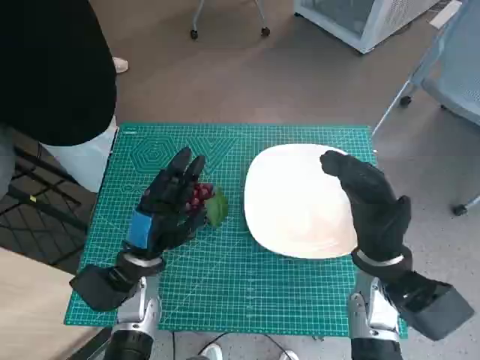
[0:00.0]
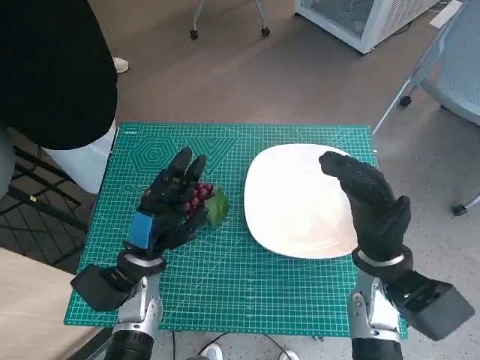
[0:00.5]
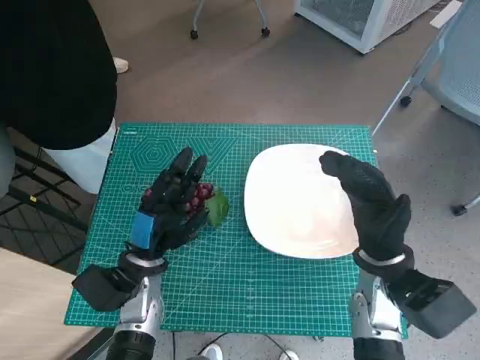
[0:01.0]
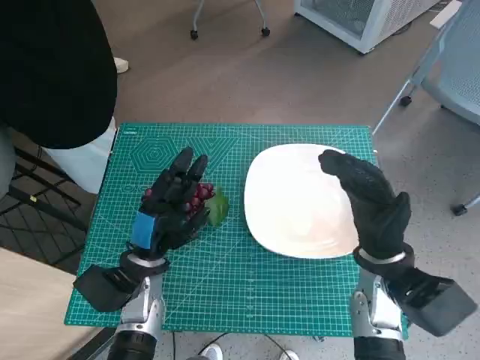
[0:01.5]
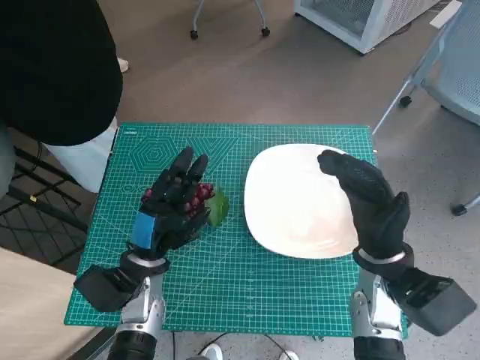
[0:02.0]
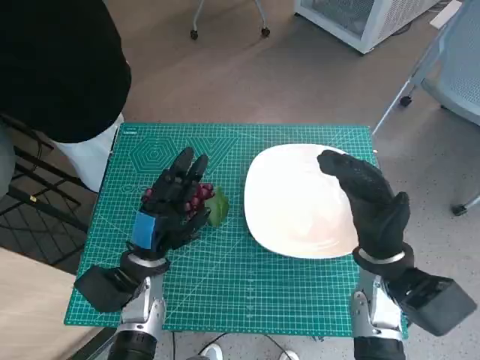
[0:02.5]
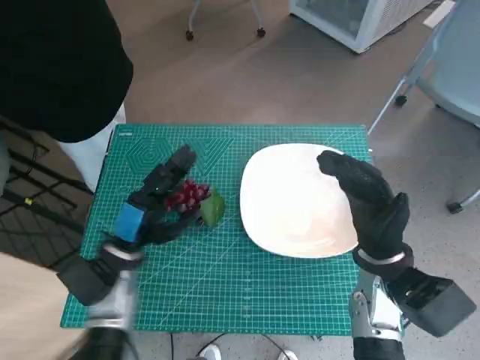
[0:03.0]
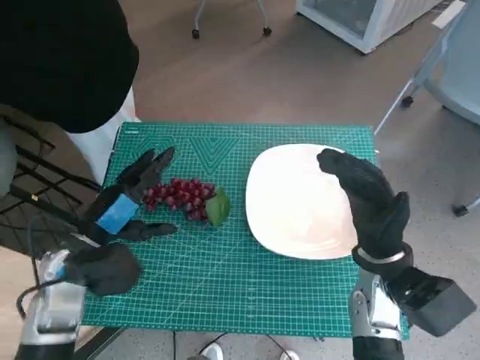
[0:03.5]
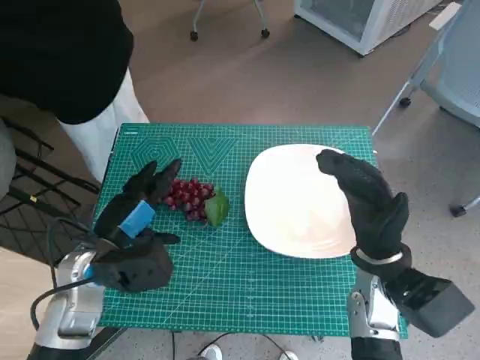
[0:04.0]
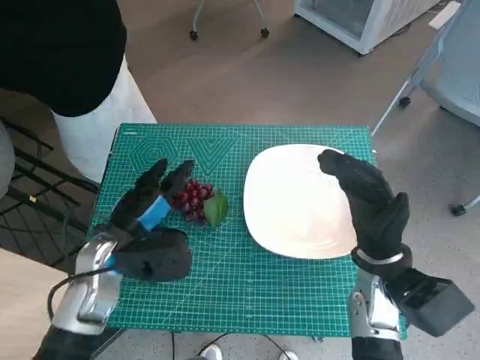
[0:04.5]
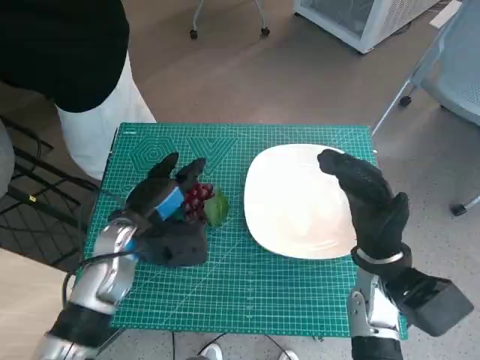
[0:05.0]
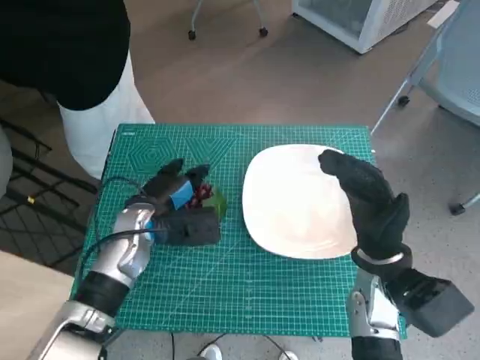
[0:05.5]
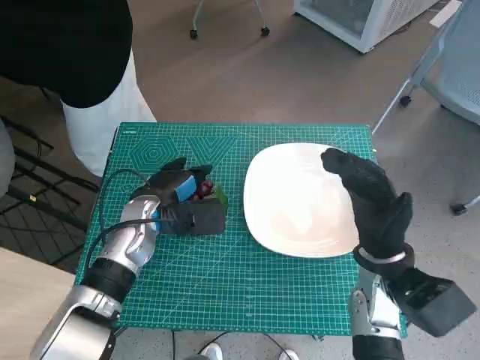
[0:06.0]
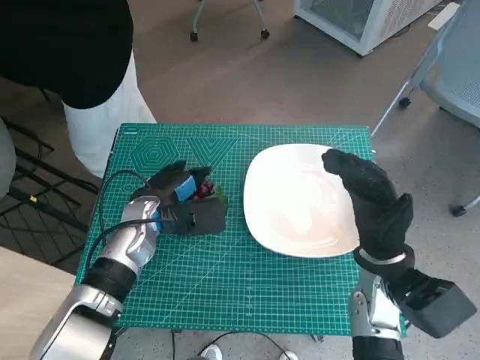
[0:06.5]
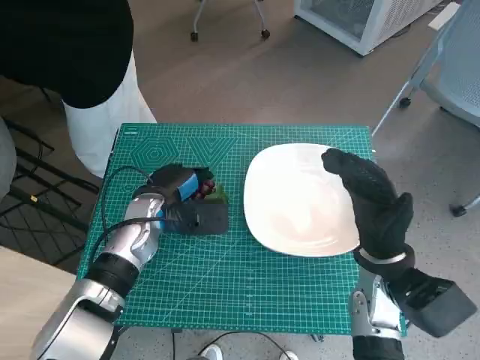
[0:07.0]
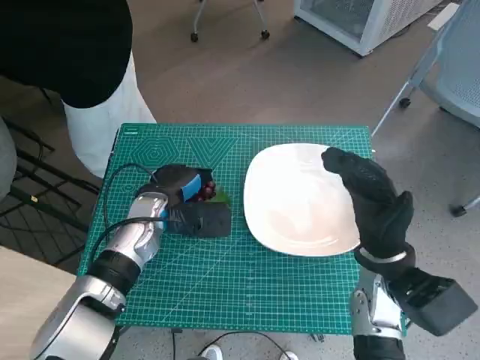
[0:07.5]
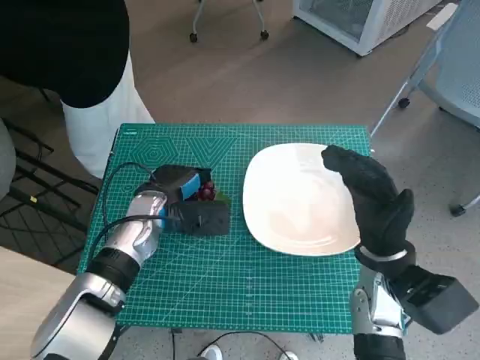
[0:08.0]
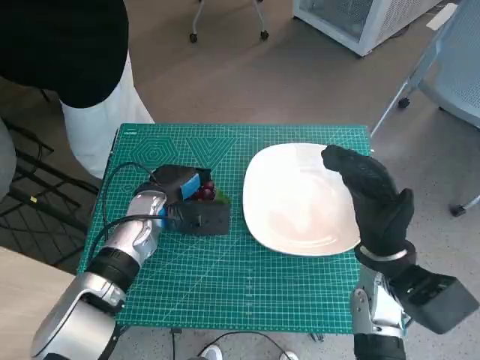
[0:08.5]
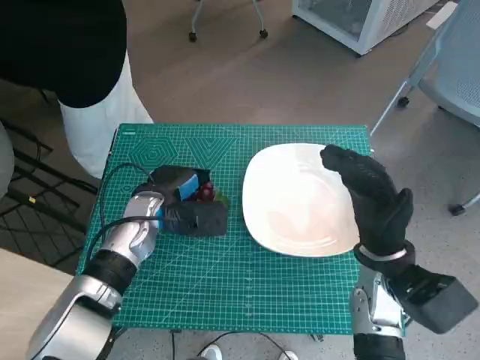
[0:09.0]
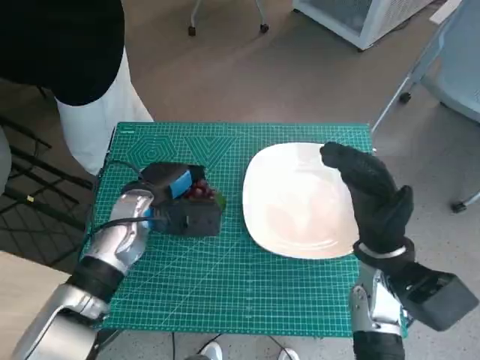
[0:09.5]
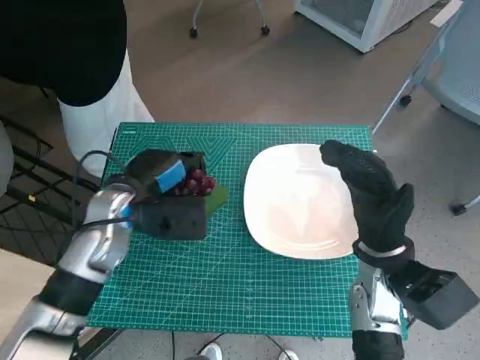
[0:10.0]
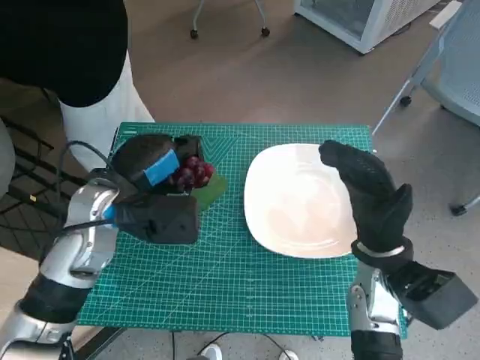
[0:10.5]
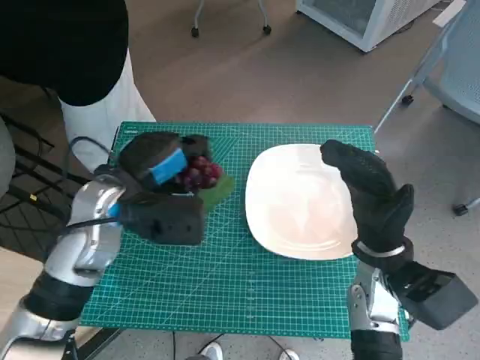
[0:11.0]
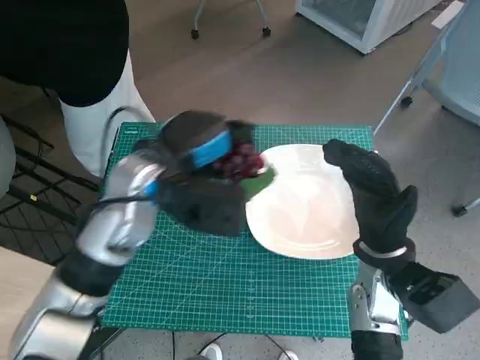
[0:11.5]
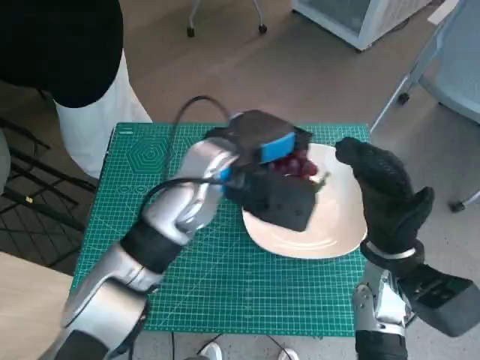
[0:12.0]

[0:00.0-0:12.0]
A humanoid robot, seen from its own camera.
Task of the whole recording: Pick up the grapes and put them on the plate.
Step, 0:00.0 to 0:05.5: Grasp the grapes with left hand.
0:02.0 to 0:04.0: The left hand heads upward, covering some 5 cm.
0:04.0 to 0:06.0: The left hand goes some 10 cm forward.
0:06.0 to 0:08.0: There are only small adjustments of the hands.
0:08.0 to 0:10.0: The left hand goes approximately 5 cm upward.
0:10.0 to 0:12.0: The left hand is displaced to the right and upward by approximately 15 cm.

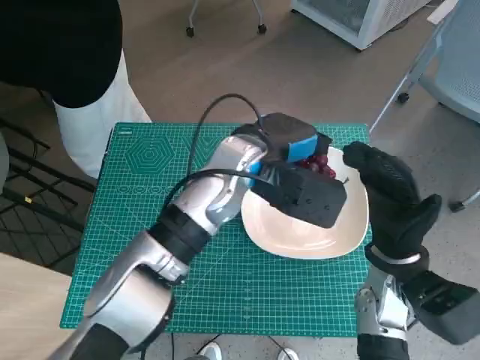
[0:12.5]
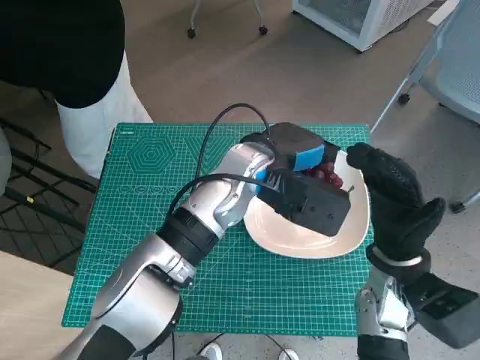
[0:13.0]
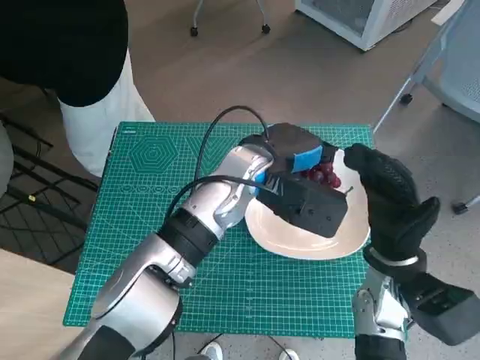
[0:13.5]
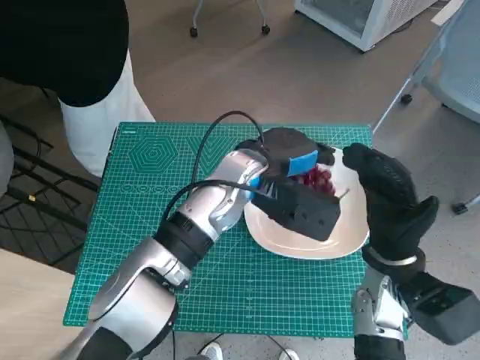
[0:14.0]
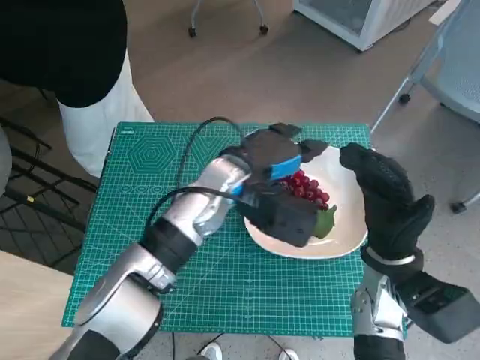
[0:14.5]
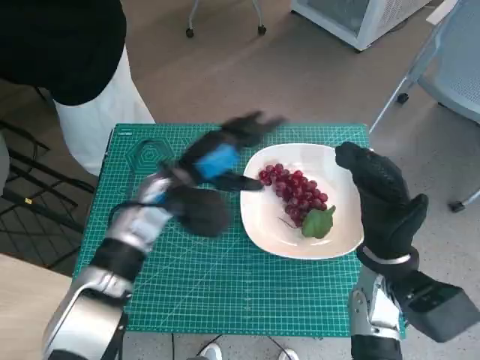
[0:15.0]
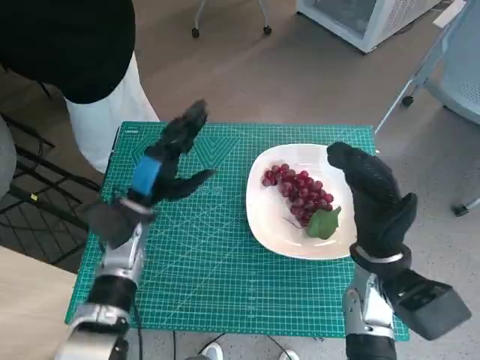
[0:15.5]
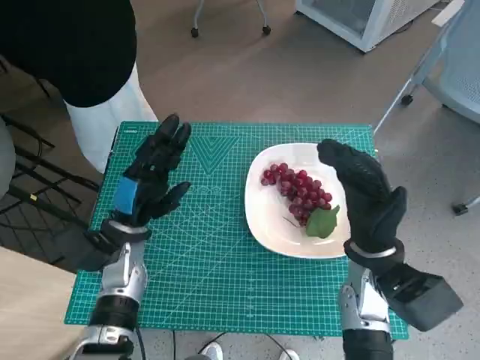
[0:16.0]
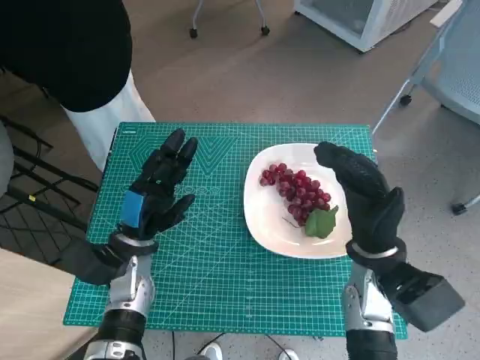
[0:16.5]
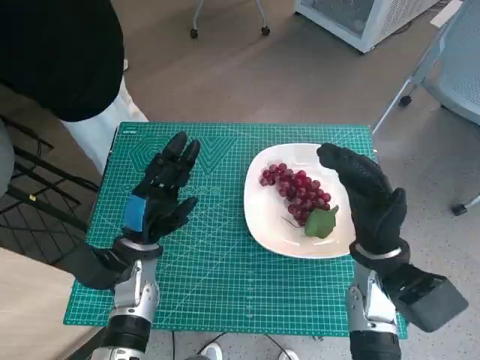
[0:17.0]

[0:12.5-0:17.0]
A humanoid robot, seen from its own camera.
Task of the whole recording: Pick up the grapes and put them on the plate.
0:12.5 to 0:14.5: There are only small adjustments of the hands.
0:14.5 to 0:17.0: The left hand shifts roughly 20 cm to the left, downward and backward.

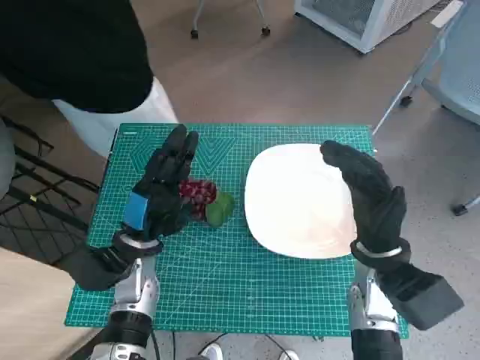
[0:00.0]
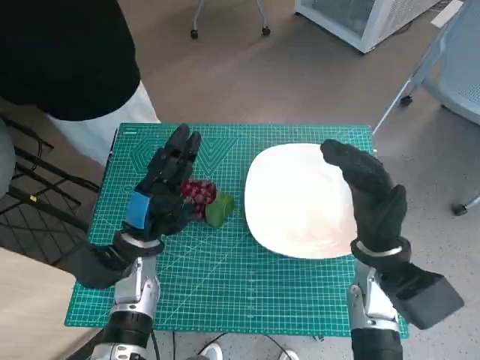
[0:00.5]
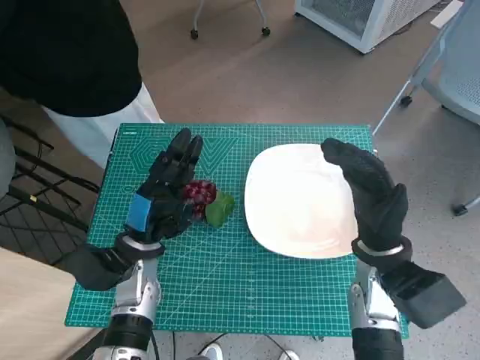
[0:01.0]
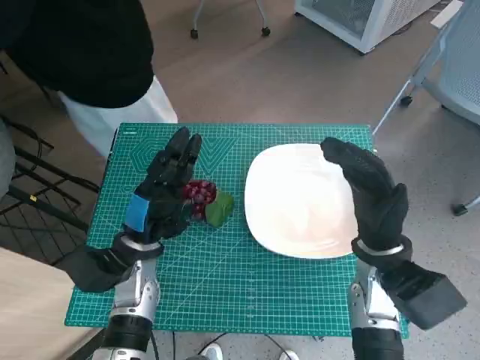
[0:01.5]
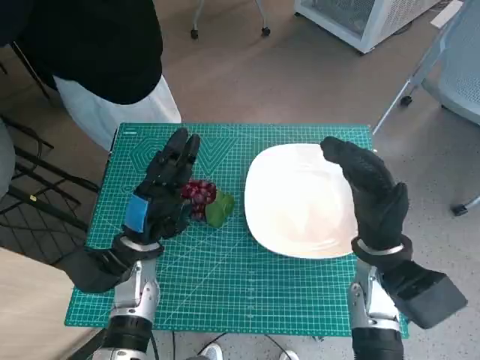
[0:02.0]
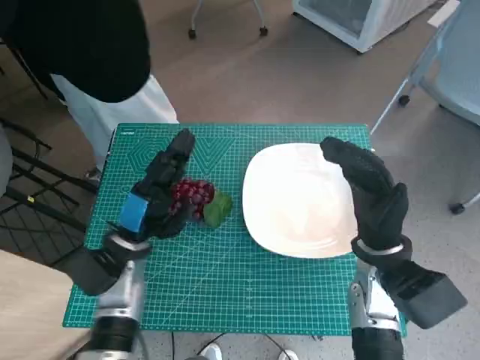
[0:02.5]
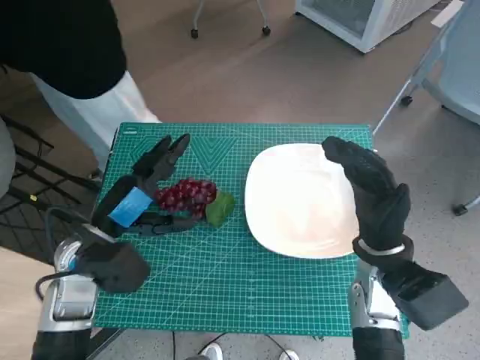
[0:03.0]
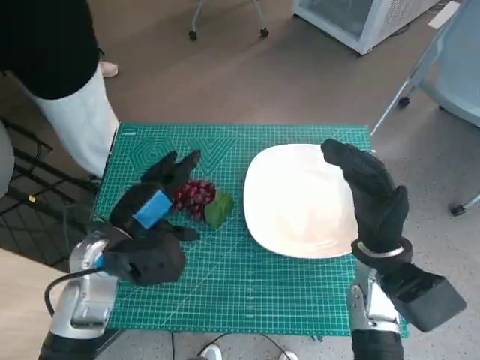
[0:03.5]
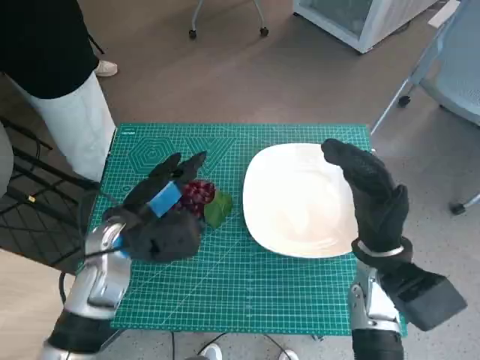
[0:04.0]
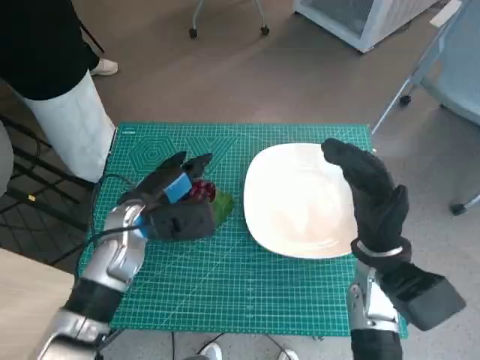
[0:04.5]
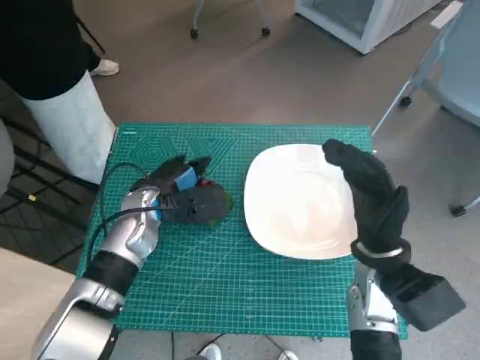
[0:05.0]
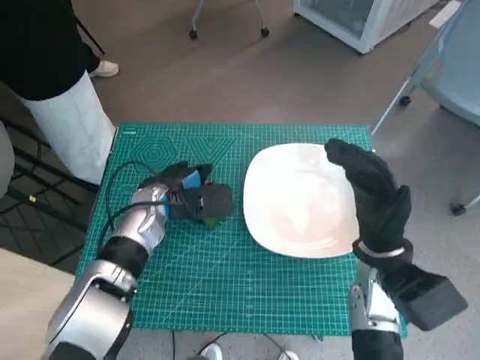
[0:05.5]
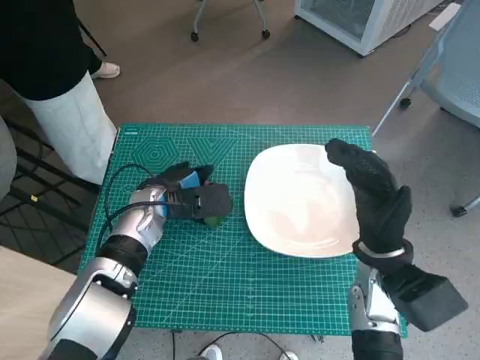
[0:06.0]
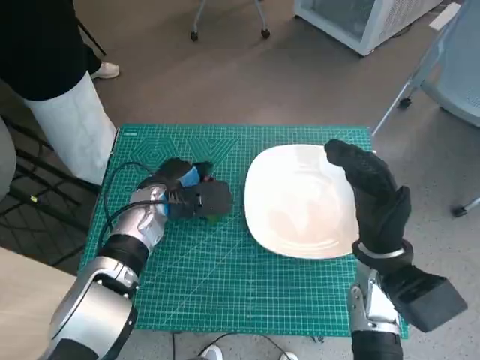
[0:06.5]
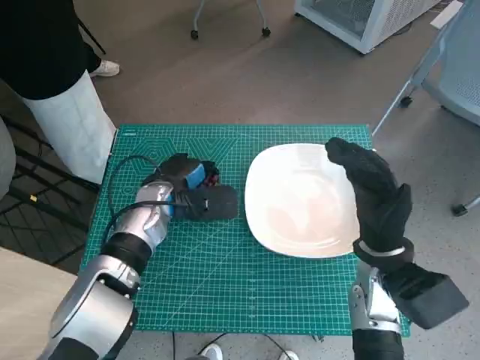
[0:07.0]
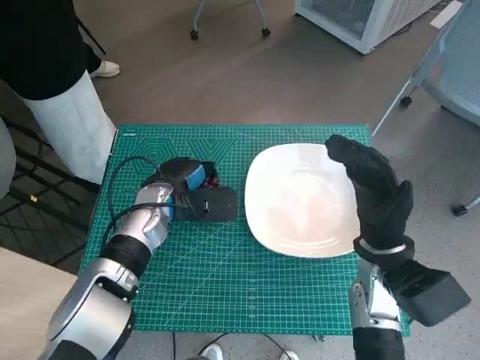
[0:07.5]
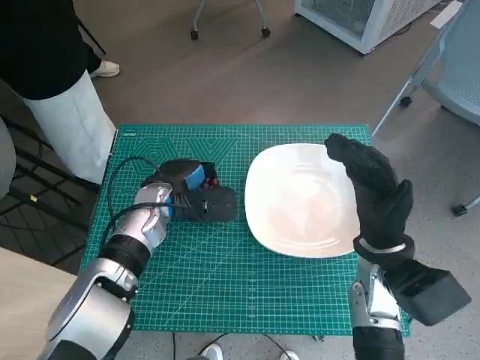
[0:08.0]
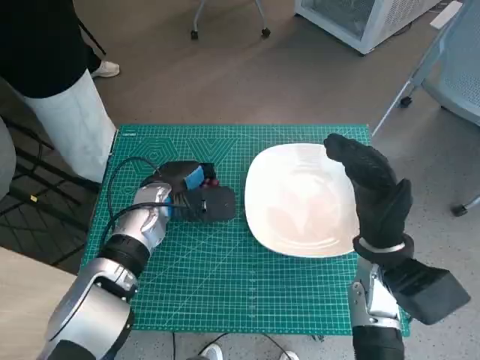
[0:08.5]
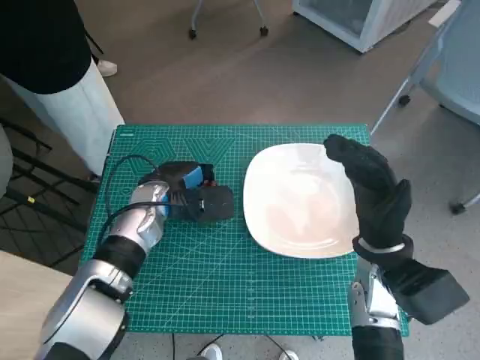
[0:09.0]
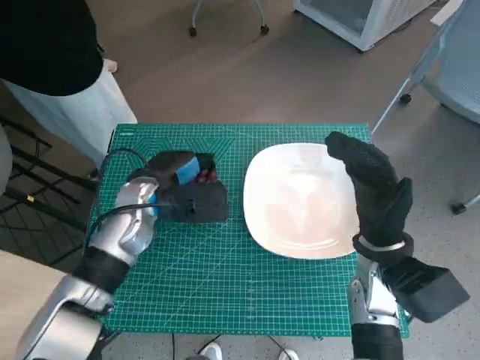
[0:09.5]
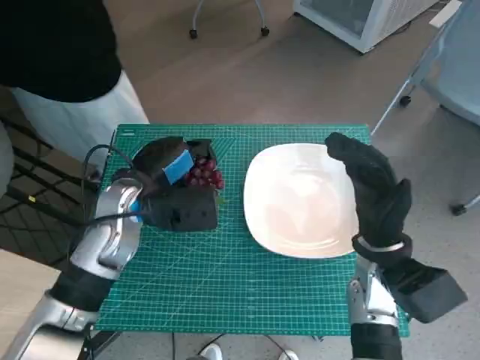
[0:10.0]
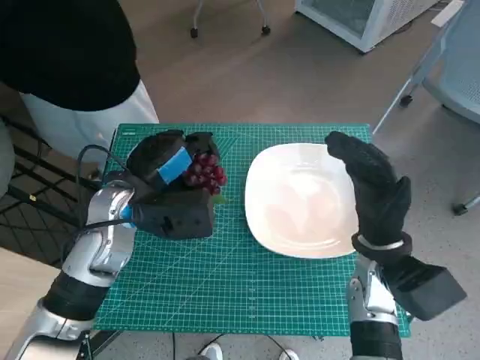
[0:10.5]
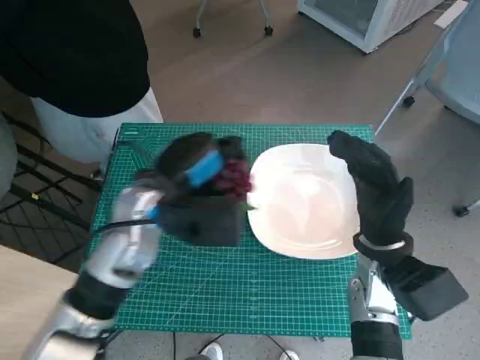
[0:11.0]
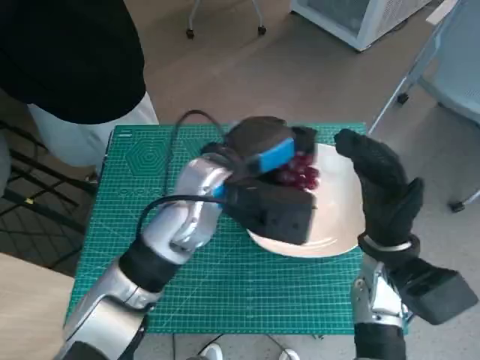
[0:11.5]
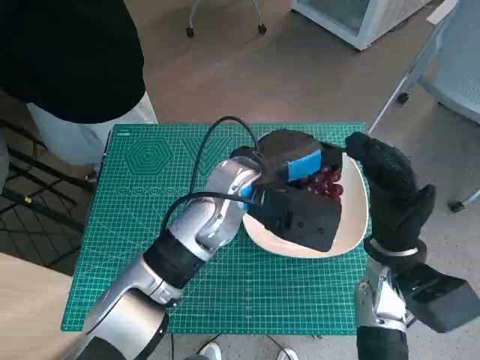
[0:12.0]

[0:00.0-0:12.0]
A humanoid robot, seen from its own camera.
Task of the whole recording: Pick up the grapes and put them on the plate.
Step, 0:00.0 to 0:07.5: Grasp the grapes with left hand.
0:02.0 to 0:04.0: The left hand is displaced upward by roughly 5 cm.
0:04.0 to 0:06.0: The left hand shifts about 10 cm forward.
0:06.0 to 0:08.0: The hands make only small movements.
0:08.0 to 0:10.0: The left hand shifts some 5 cm upward.
0:10.0 to 0:12.0: The left hand shifts roughly 15 cm to the right.
